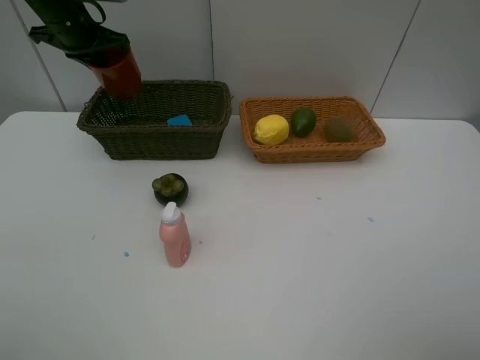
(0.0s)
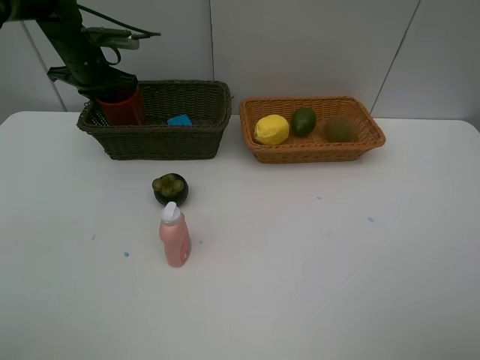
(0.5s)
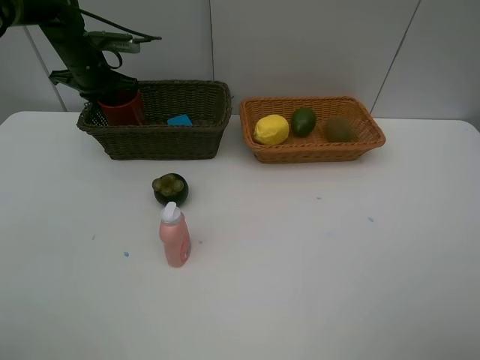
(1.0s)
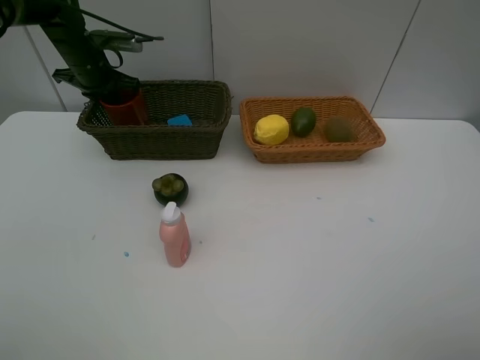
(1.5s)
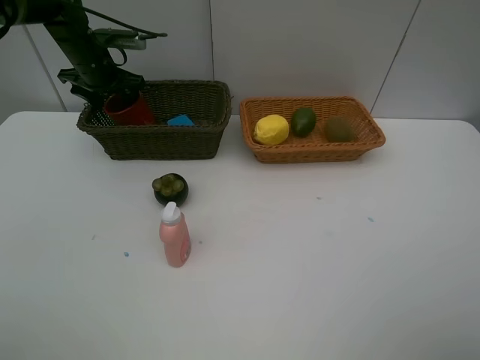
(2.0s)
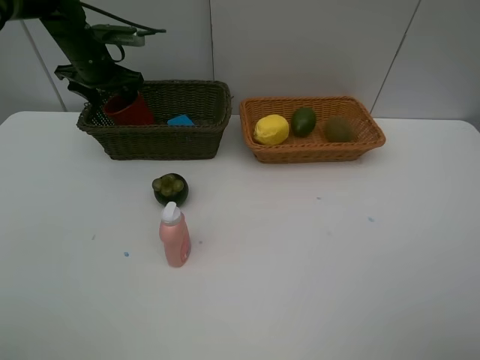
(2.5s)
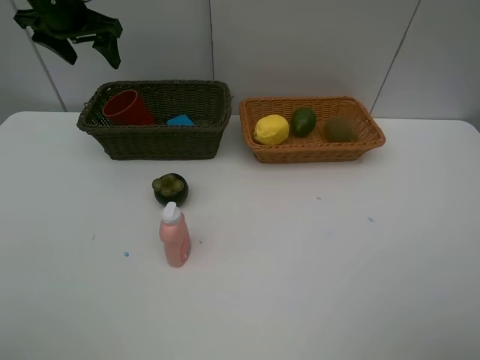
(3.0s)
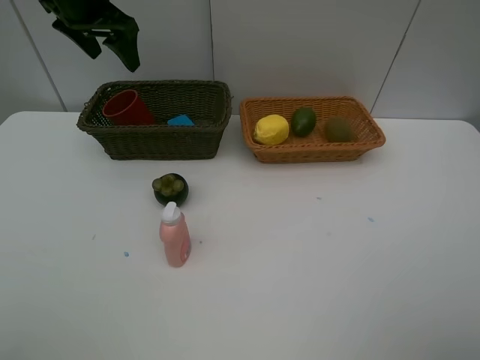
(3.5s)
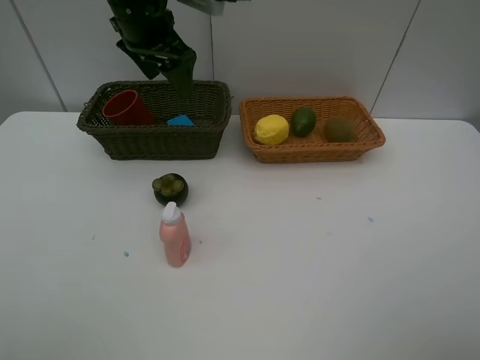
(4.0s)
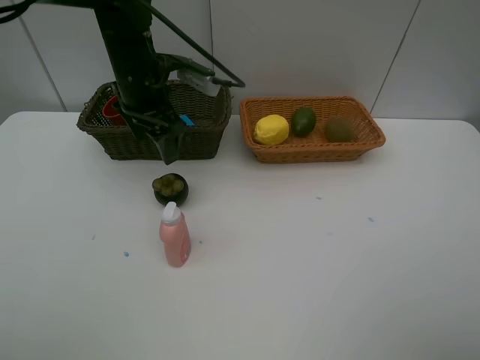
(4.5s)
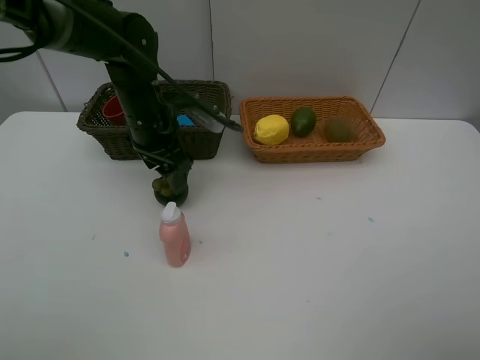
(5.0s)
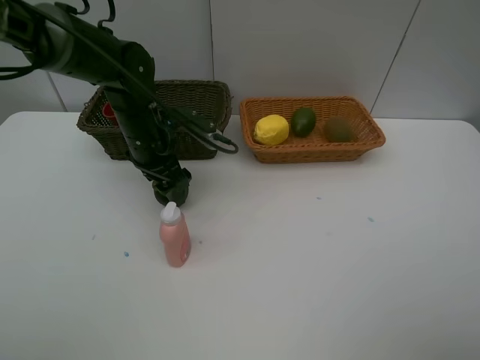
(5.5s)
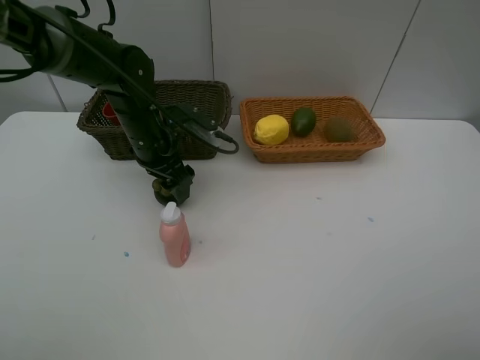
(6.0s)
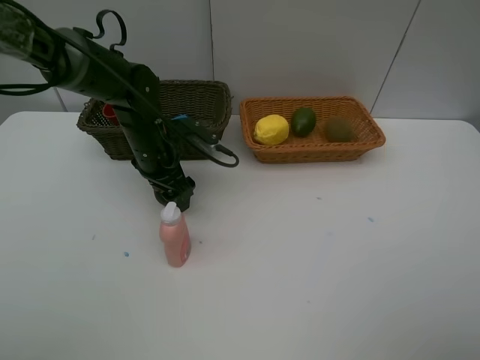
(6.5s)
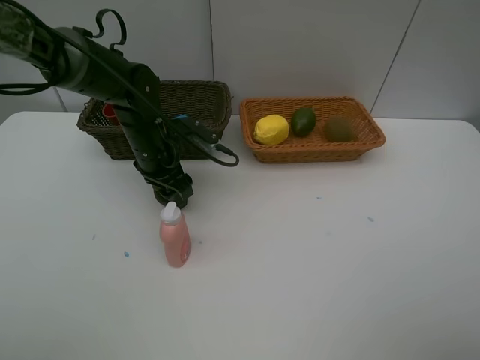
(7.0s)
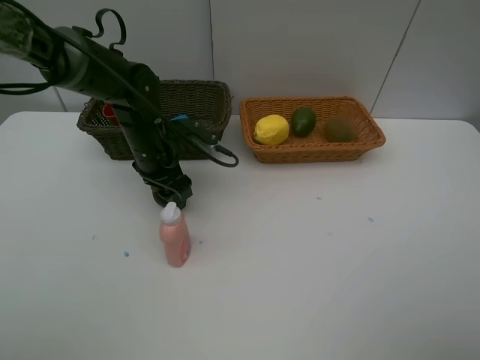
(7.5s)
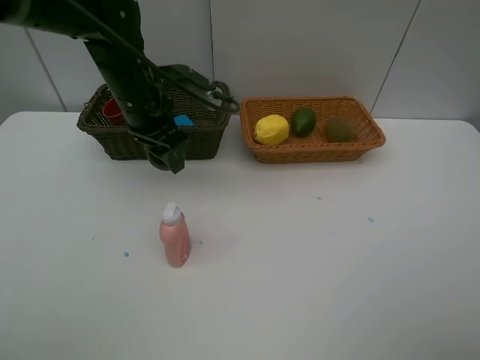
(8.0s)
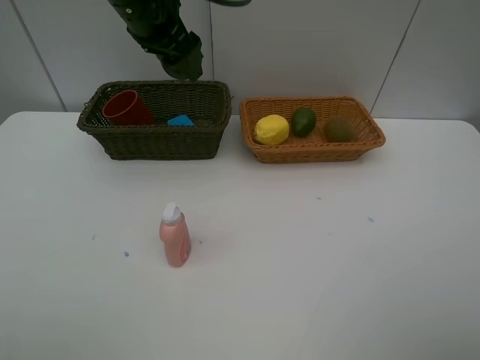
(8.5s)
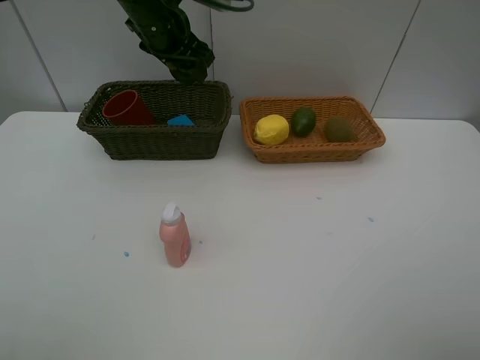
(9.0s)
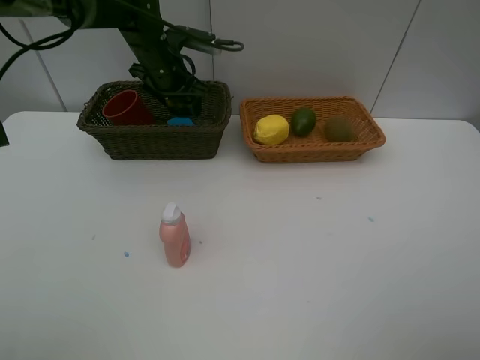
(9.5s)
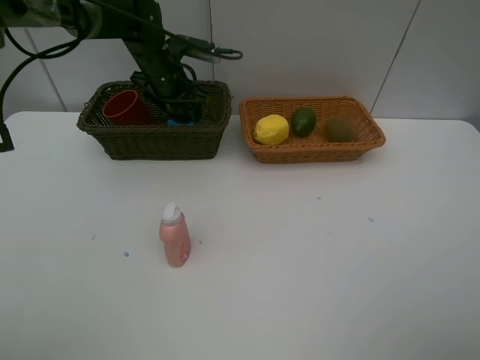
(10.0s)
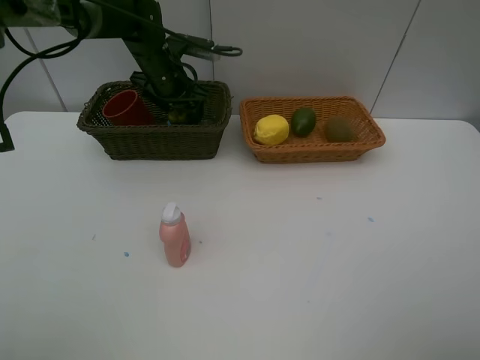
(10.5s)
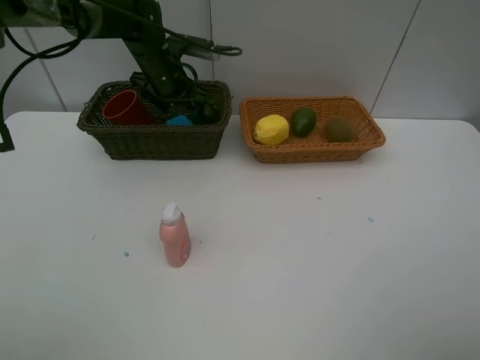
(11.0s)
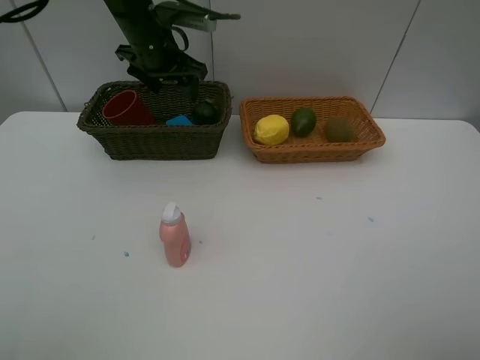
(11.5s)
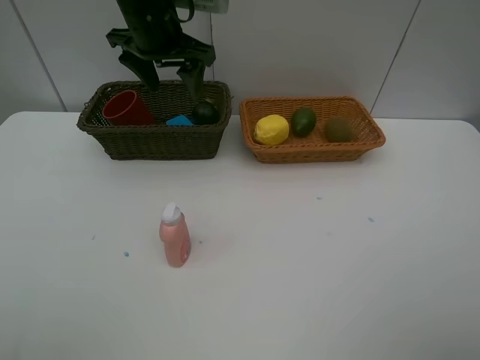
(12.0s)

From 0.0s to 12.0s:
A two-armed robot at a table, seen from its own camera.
Task of the whole recording: Place multiple objects separately in different baskets.
Step, from 0.0s to 2.5s: Place the dark brown cup in the dark basket with left gripper.
Step, from 3.0s to 7.5s: Pick up the mangosteen with left gripper.
Step, from 8.0s to 11.5s: Place the mangosteen in the light basket with left gripper.
From 0.0s to 2.0s: The left gripper heads downward, covering about 5 cm, and opens.
From 2.0s to 4.0s: The left gripper goes approximately 20 cm to the right, upward and backward.
From 4.0s to 6.0s: The left gripper moves downward, approximately 15 cm.
From 6.0s to 8.0s: The left gripper shifts about 10 cm upward.
From 8.0s to 10.0s: The left gripper is displaced forward by some 10 cm, and moves approximately 10 cm upward and comes back.
From 10.0s to 12.0s: The left gripper shifts approximately 15 cm upward and backward.

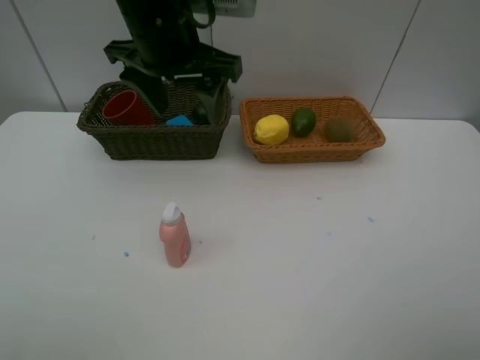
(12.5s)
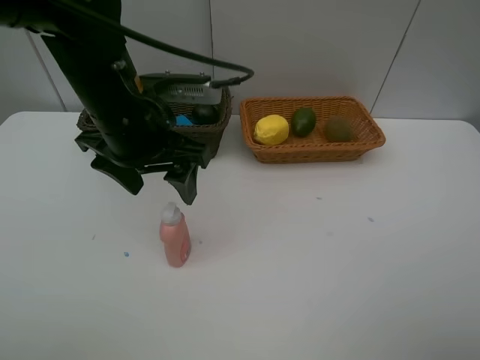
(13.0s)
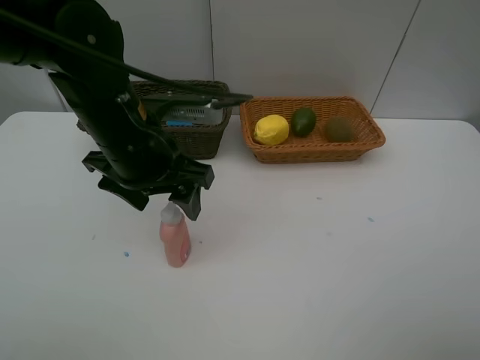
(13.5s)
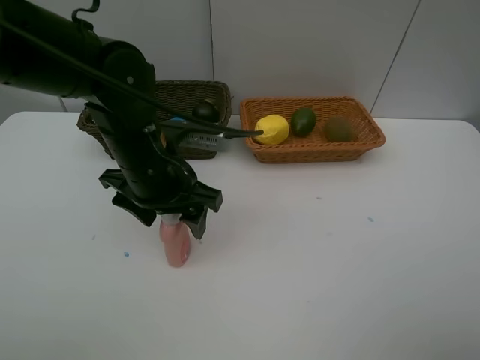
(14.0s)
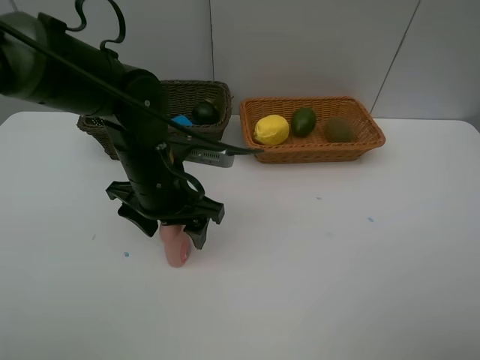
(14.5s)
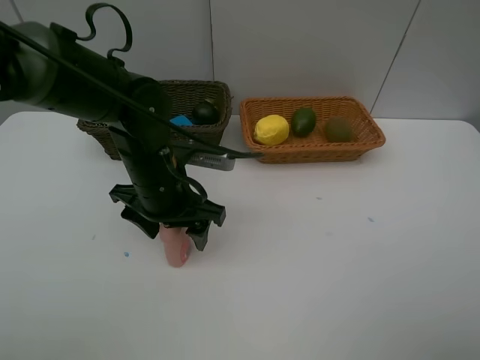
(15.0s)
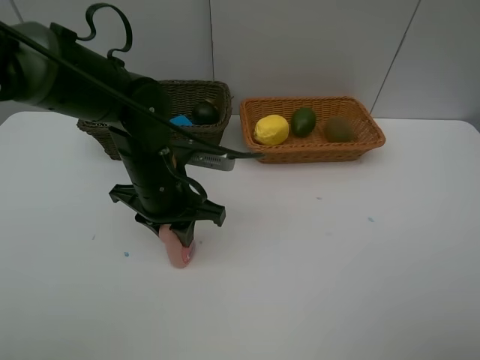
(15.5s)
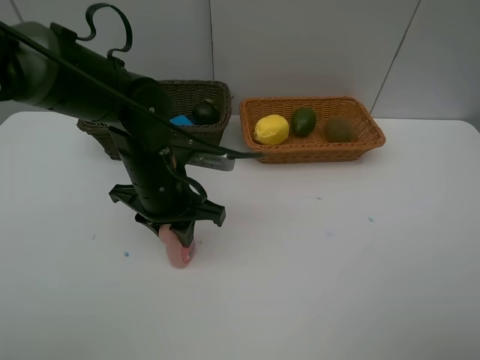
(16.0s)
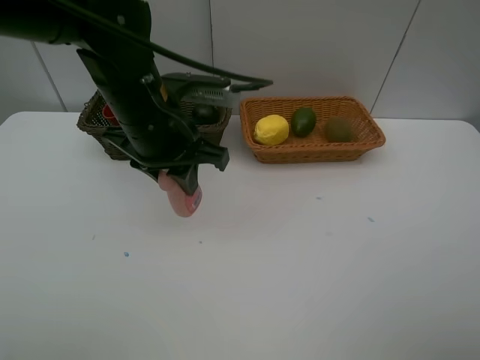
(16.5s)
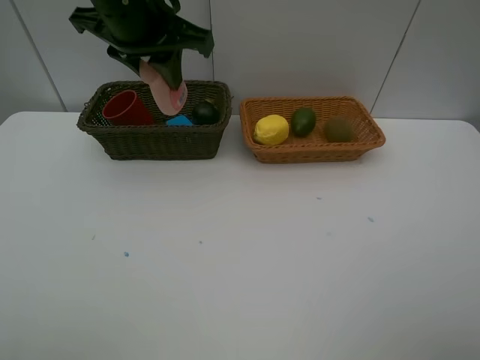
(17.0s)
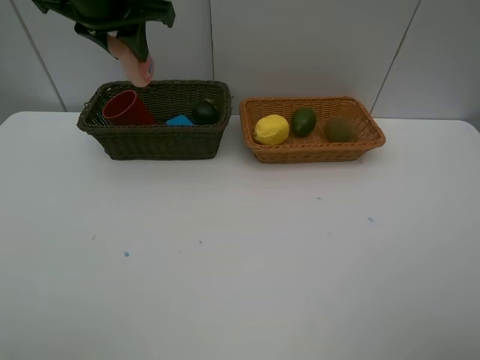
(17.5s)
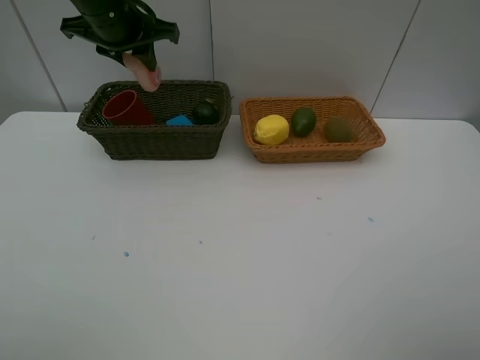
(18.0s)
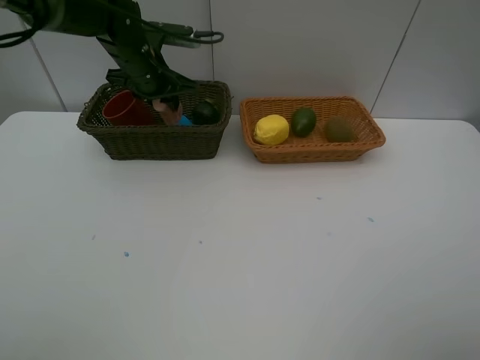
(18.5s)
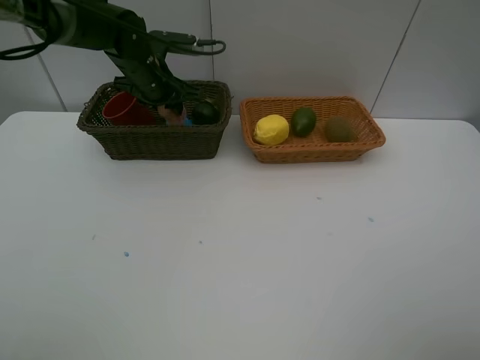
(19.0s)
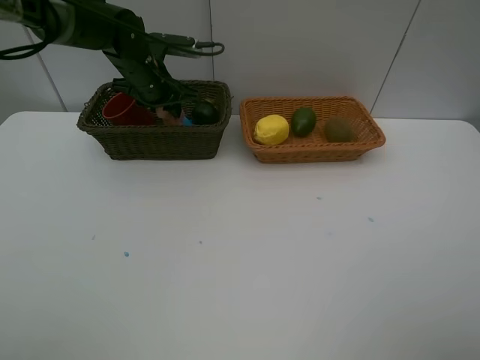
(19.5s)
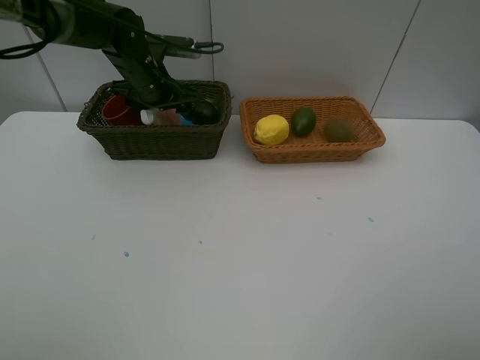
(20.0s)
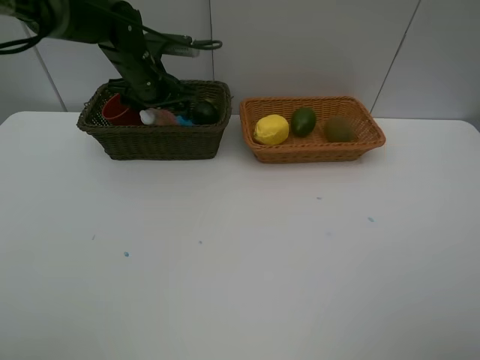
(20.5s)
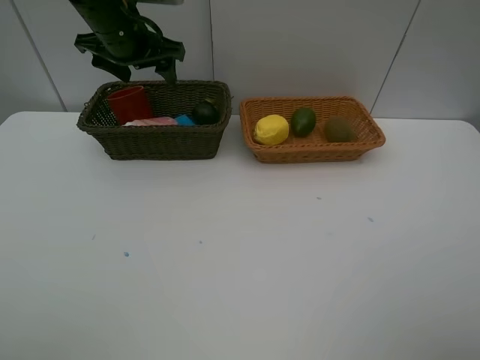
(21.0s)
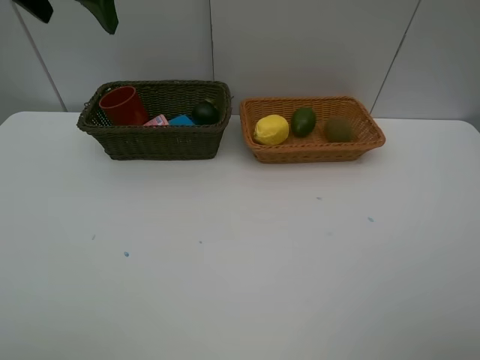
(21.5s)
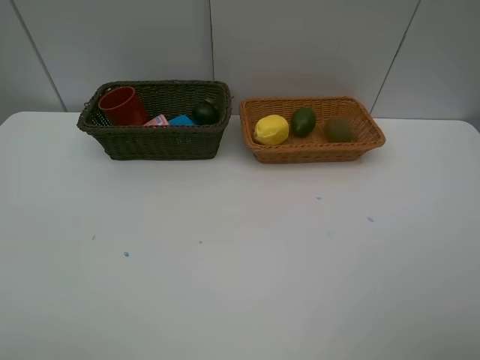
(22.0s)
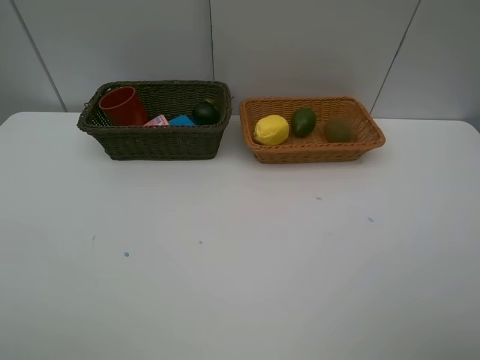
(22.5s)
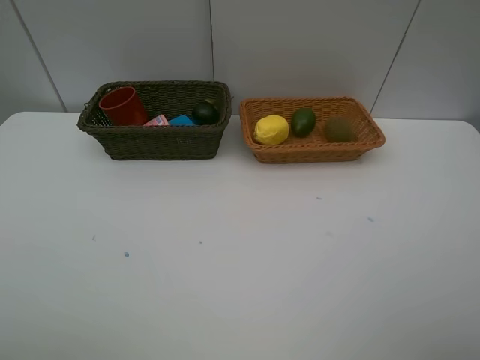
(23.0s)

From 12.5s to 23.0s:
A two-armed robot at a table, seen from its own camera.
Task of the whole recording: Place multiple objects separately in different baskets.
Step, from 12.5s to 16.0s: Pick up the laundry detergent with left gripper.
Step, from 16.5s to 20.5s: Place the laundry detergent in the dark basket with left gripper.
From 12.5s to 14.5s: The left gripper is displaced downward by about 15 cm.
From 14.5s to 16.5s: The left gripper is displaced upward by roughly 10 cm, and closes up.
From 16.5s to 19.0s: The left gripper shifts some 20 cm forward.
From 19.0s to 21.0s: The left gripper heads upward, covering approximately 10 cm, and opens its fingers.
From 21.0s to 23.0s: The left gripper travels backward by roughly 40 cm.

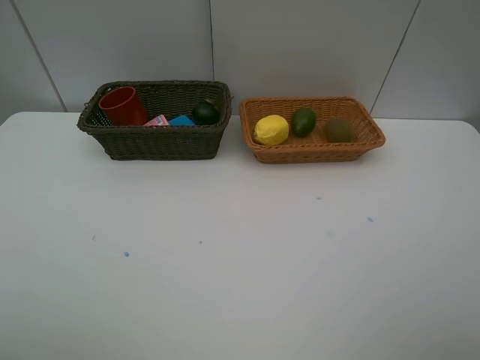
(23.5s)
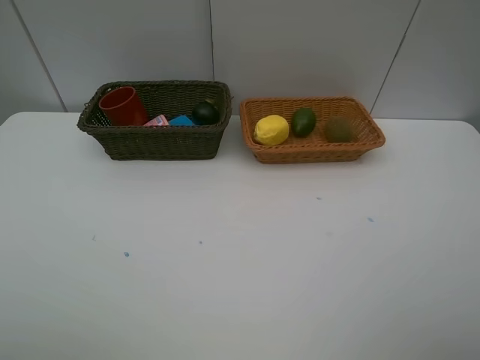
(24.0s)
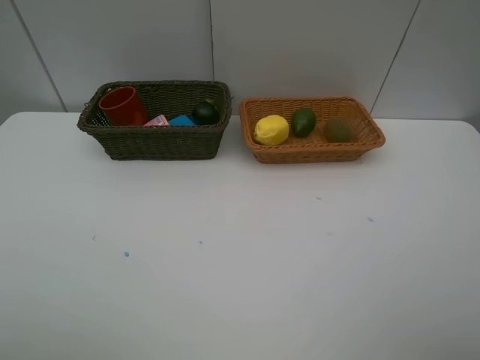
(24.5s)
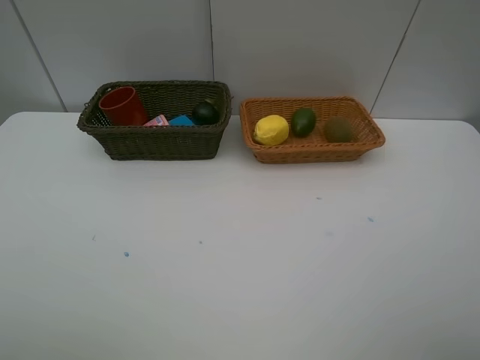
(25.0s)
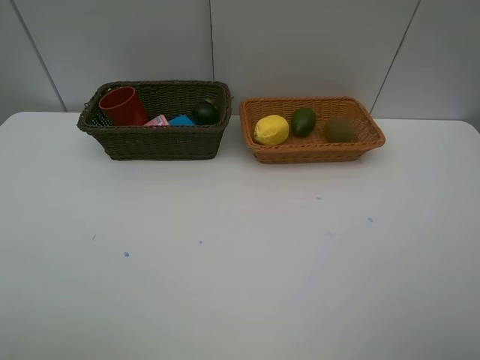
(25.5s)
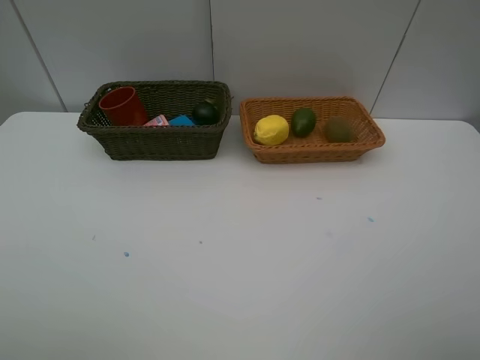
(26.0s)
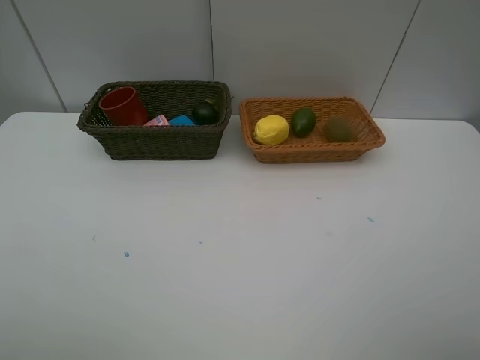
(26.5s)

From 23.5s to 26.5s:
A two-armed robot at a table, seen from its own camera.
Task of the whole recording: Place multiple objects separately in different baskets.
From 25.0s to 26.5s: The two grippers keep their place.
